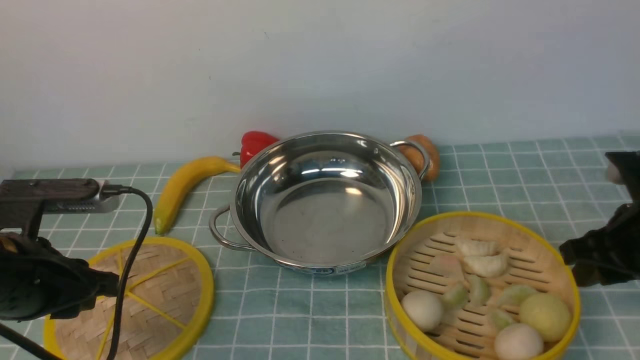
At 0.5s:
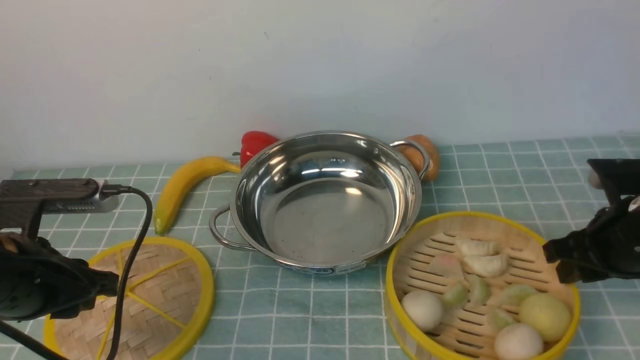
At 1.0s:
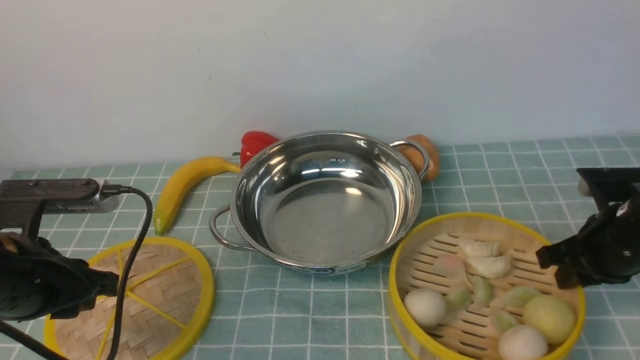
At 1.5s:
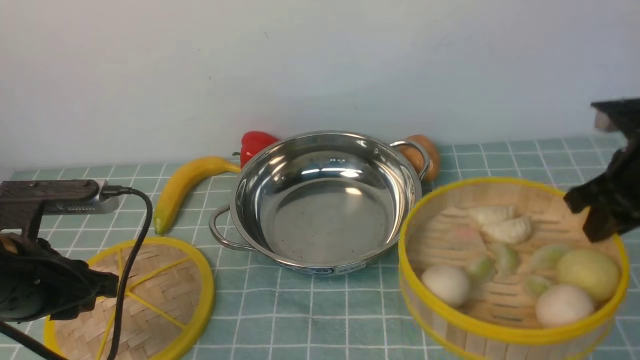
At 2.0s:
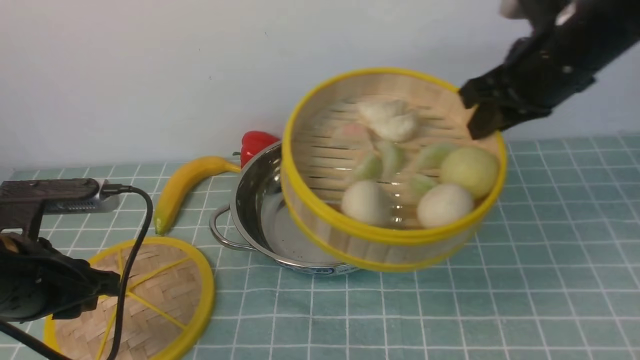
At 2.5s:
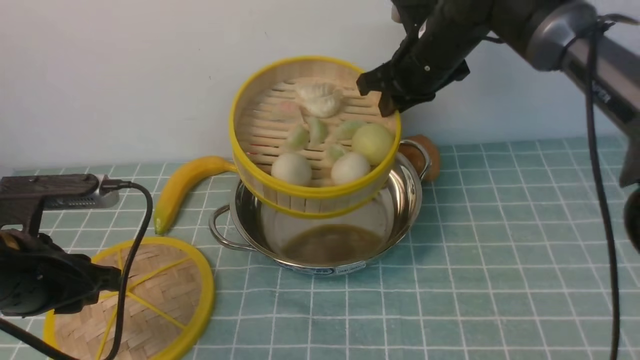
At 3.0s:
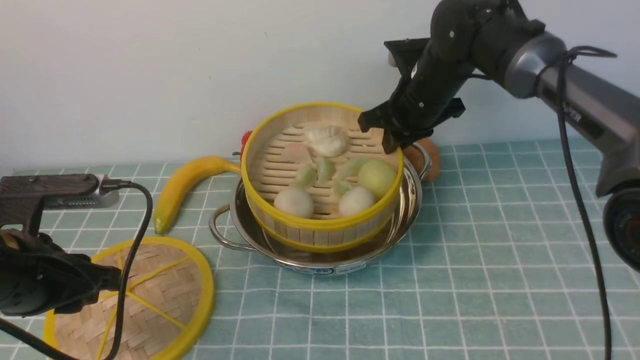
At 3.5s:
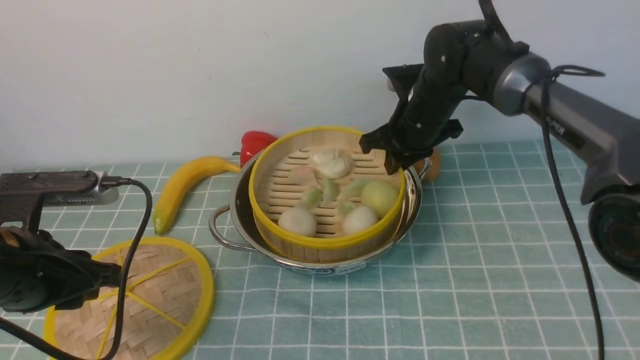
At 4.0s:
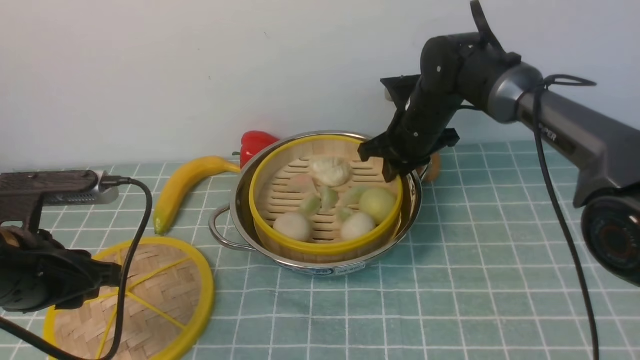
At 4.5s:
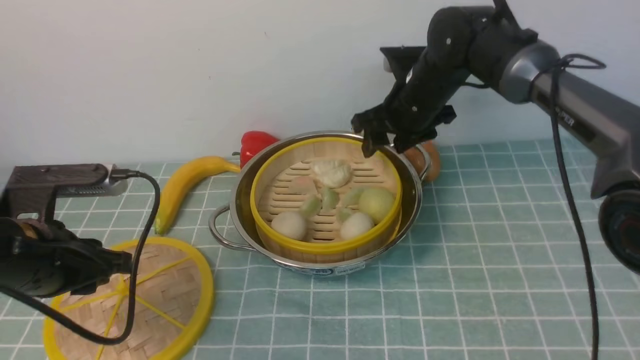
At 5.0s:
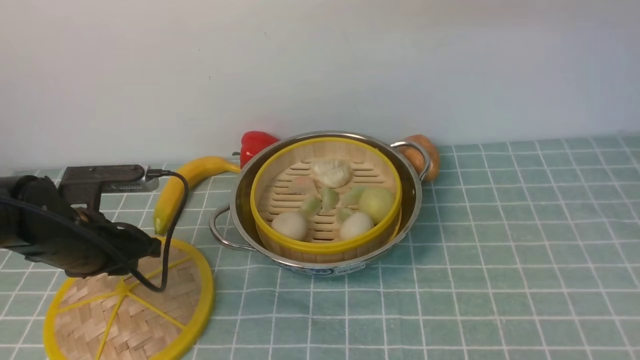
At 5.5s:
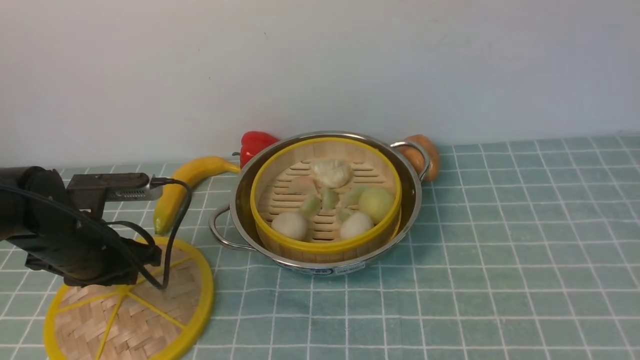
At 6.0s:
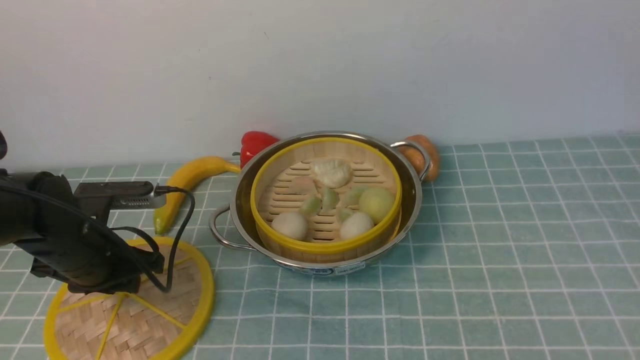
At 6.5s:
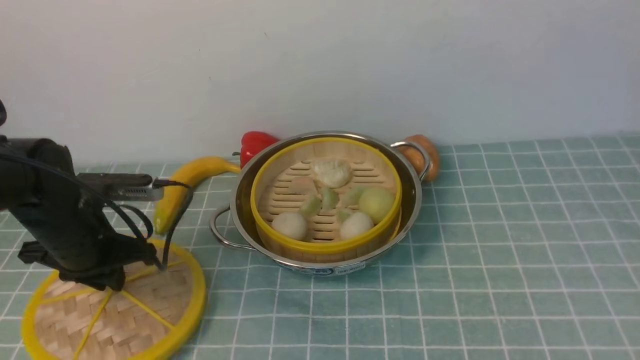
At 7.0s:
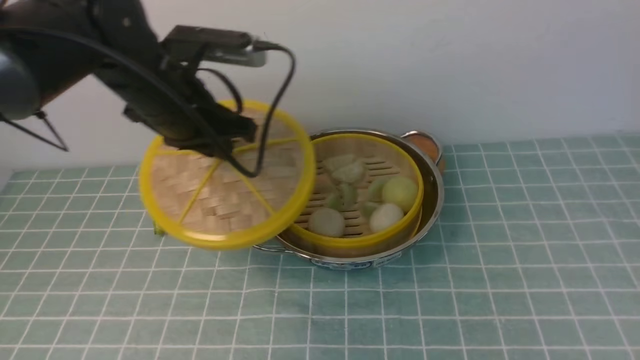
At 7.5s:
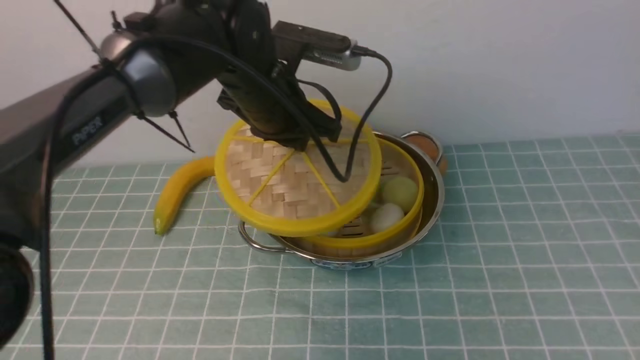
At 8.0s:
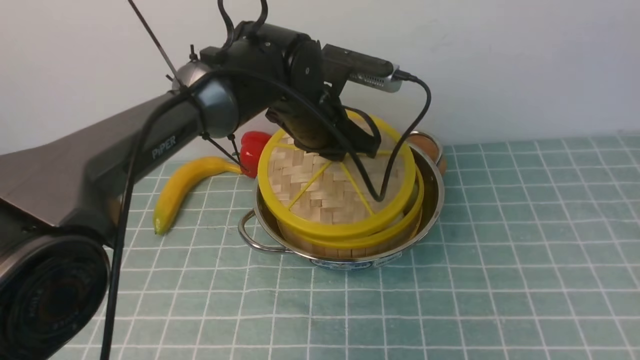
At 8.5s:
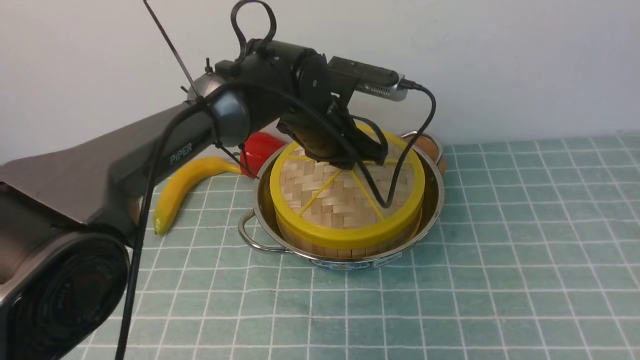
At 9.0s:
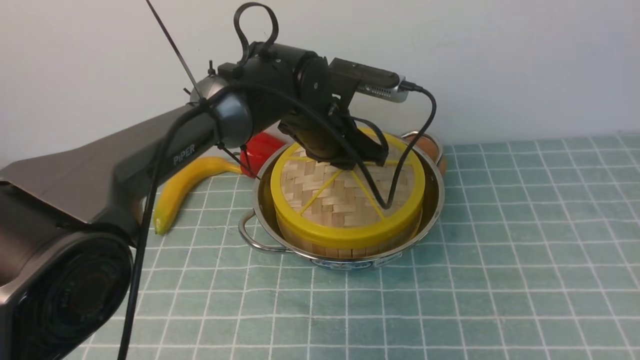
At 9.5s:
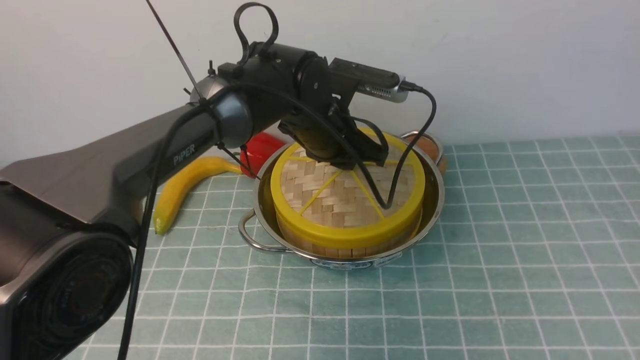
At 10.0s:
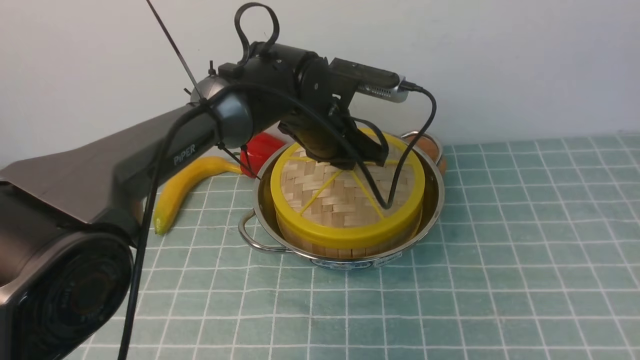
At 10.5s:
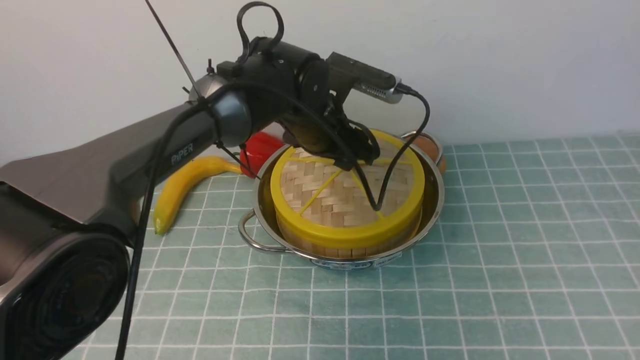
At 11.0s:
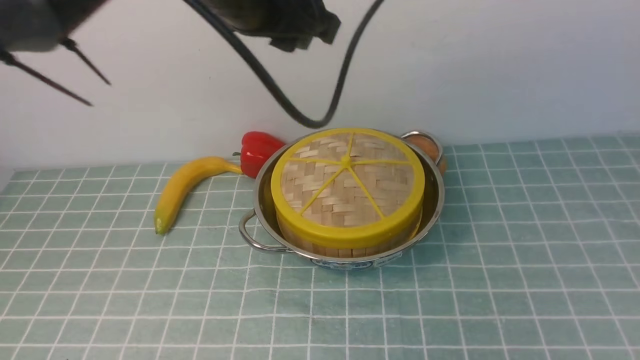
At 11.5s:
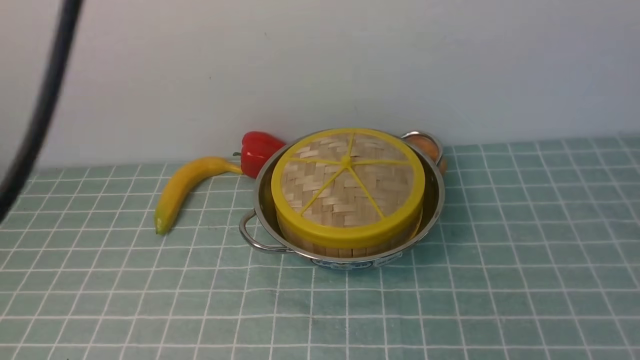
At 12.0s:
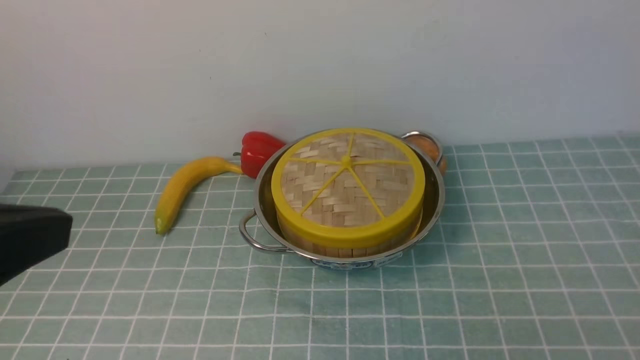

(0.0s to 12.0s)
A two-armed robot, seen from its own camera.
Task of the whole recording: place the steamer in the pot on the blue tablecloth, and put the lid on the steamer.
Step, 2.0s - 5.0s: use the right arm to put the steamer into the iron steamer pot in the middle.
Step, 5.5s - 6.5s: use the left arm to lift the lid of the steamer.
Step, 7.0s - 11.0s: use the left arm to place the steamer lid on the steamer.
0.0s - 2.0s: The right gripper shifts roughly 20 cm upward, forward and to the left.
2.0s - 4.0s: The right gripper travels downward, forward and to the left by approximately 20 cm.
4.0s - 6.0s: The left gripper travels forward and downward by about 10 cm. The right gripper is displaced upward and backward by approximately 60 cm, and opens its fingers.
6.0s - 8.0s: The right gripper travels backward by some 10 cm, while the left gripper travels to the right and forward by some 25 cm.
8.0s - 10.0s: The grippers move only a little.
10.0s - 12.0s: The left gripper goes approximately 40 cm backward, upward and to the left, and closes up; the right gripper moves downward, some 30 cm, and closes up.

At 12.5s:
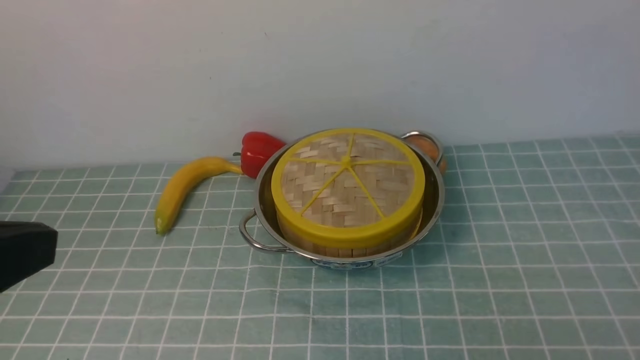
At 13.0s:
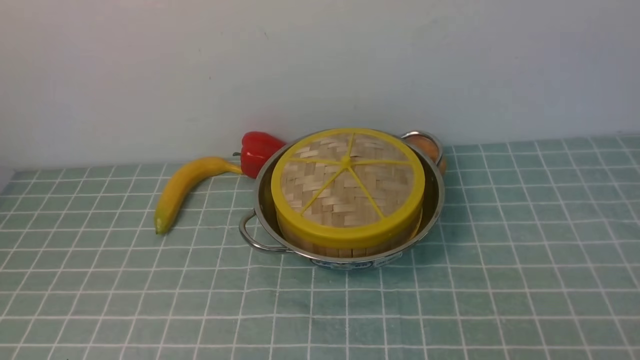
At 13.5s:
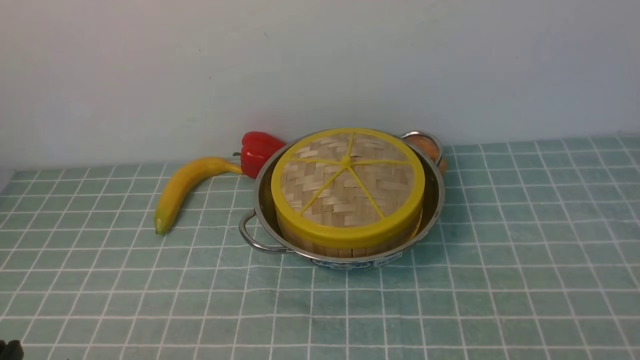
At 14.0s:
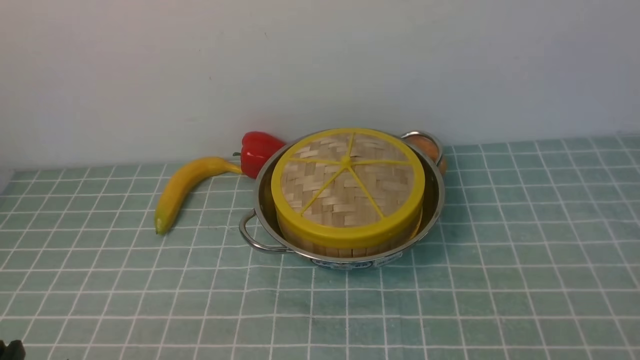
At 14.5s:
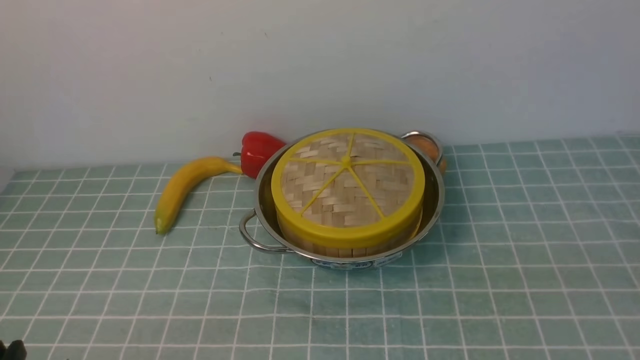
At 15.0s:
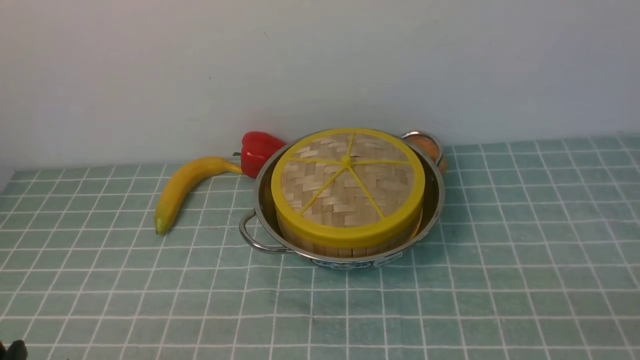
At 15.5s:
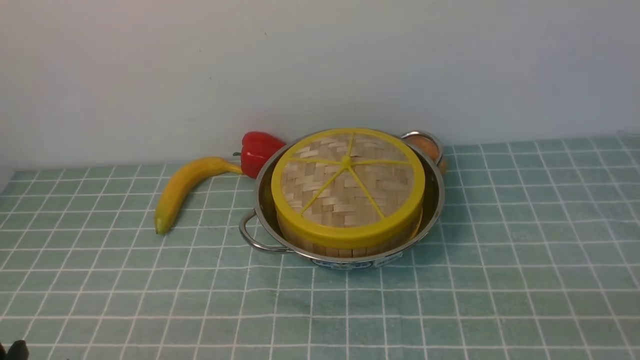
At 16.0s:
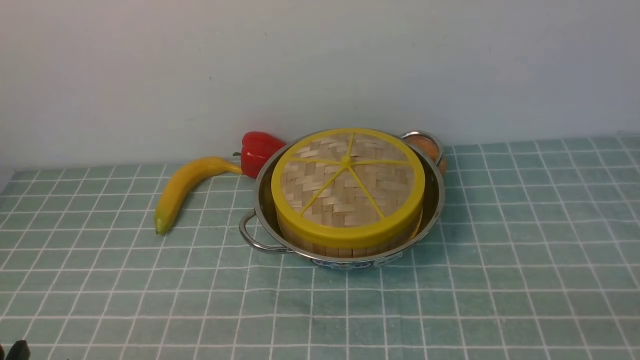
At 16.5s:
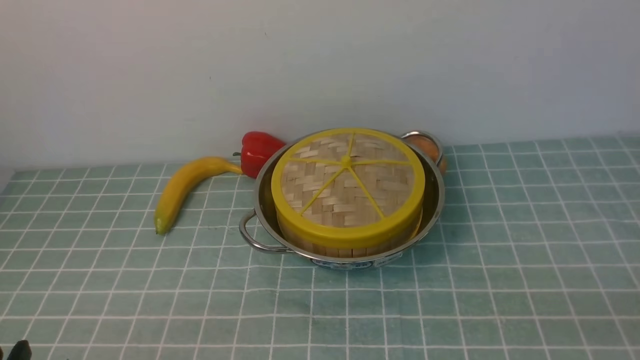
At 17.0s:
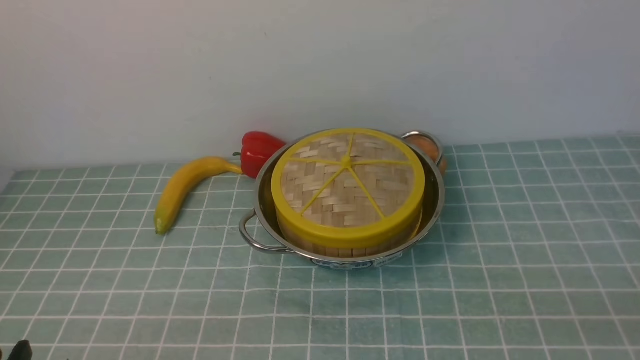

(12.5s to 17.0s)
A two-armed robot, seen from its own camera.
Task of the whole recording: place the steamer in the pot on the blue tablecloth, and put the lid on the steamer.
12.5s - 14.5s: The left gripper travels downward by approximately 20 cm.
